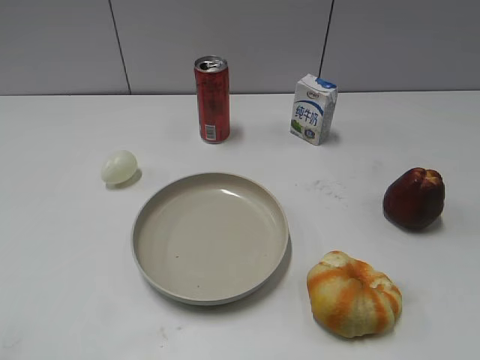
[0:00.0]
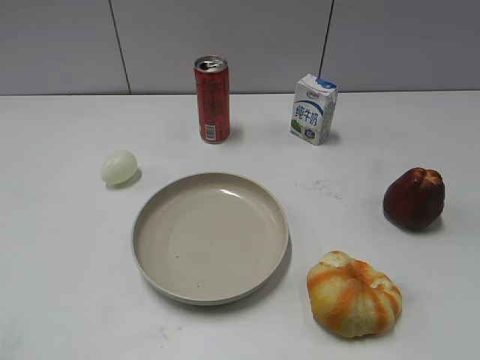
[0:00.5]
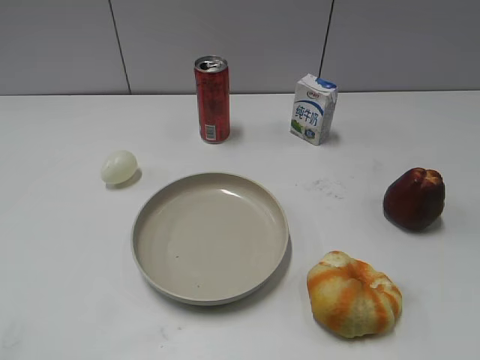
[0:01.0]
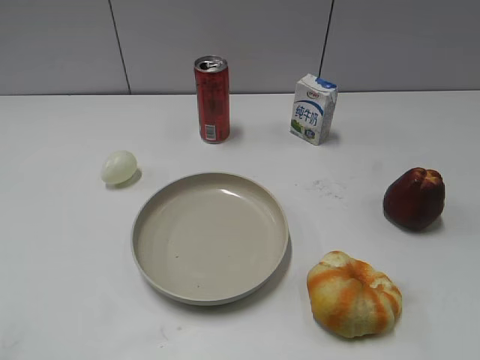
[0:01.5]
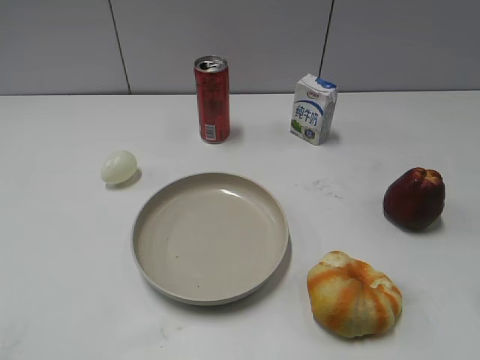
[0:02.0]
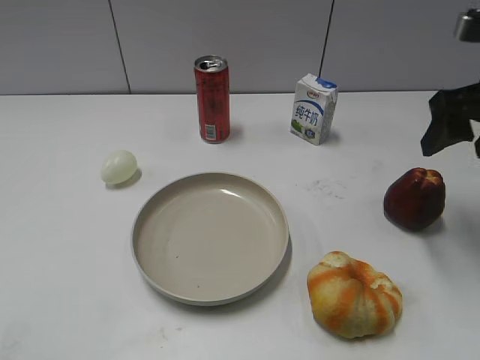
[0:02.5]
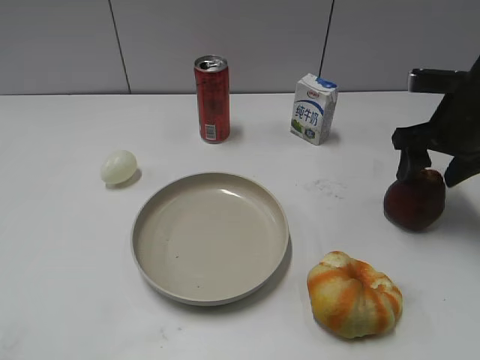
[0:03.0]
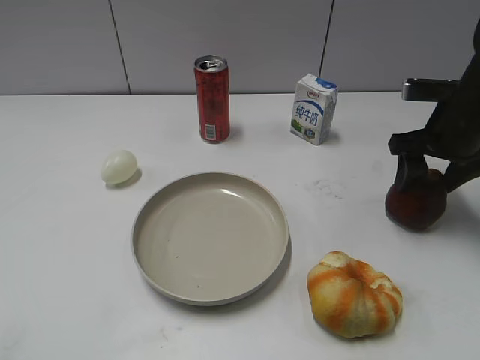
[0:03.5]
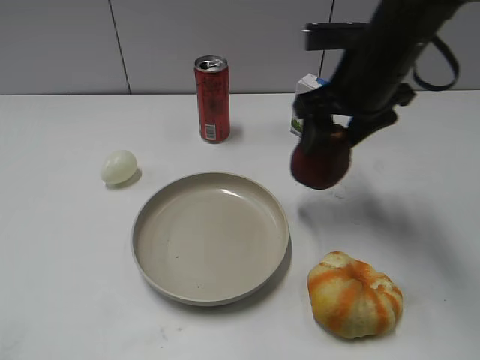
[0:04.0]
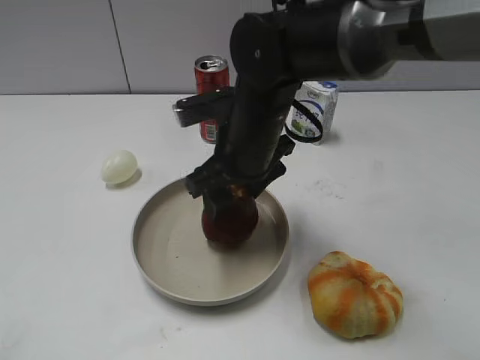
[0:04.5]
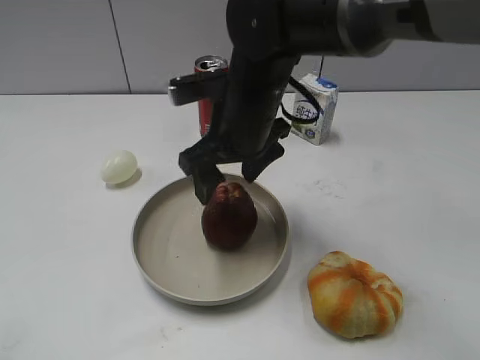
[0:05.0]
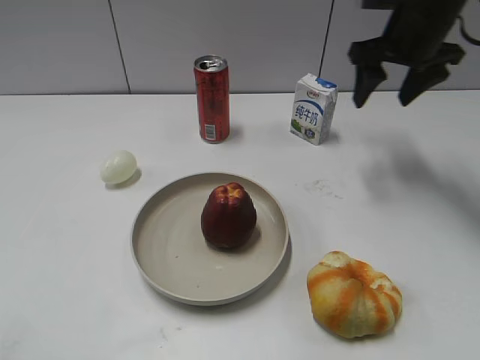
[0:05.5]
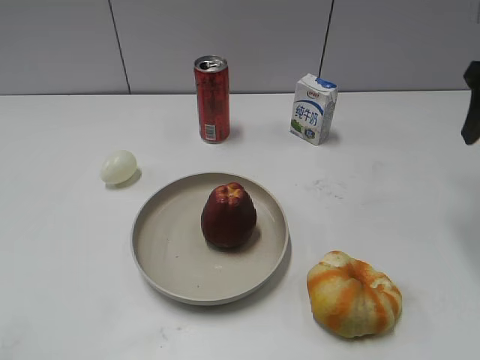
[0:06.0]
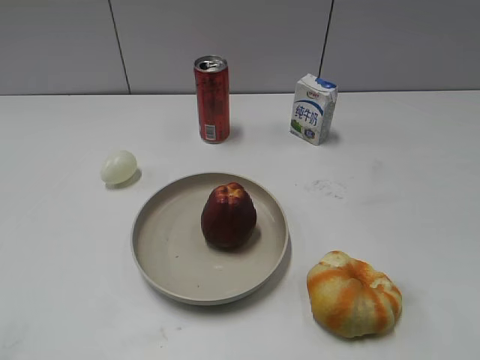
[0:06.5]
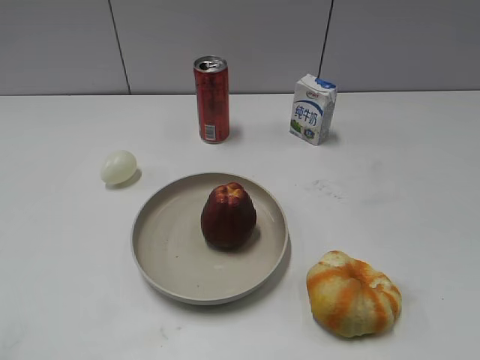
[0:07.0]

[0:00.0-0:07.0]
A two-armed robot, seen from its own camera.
Step, 0:01.0 to 0:03.5: Grasp the apple with right gripper.
Step, 0:04.0 to 0:05.0: Place the apple on the plate with right gripper.
0:02.0 to 0:03.5: The right gripper is displaced forward and downward by approximately 25 cm.
0:03.5 to 0:05.0: The right gripper moves to the left, roughly 25 cm, and opens up.
0:05.0 to 0:07.0: The right gripper heads to the right and backward, covering some 40 cm, and closes.
